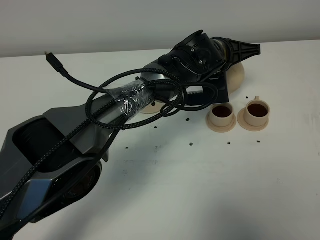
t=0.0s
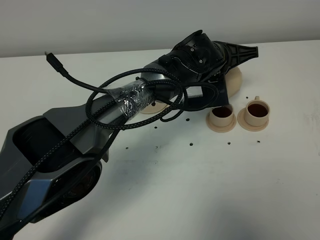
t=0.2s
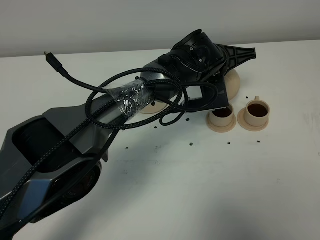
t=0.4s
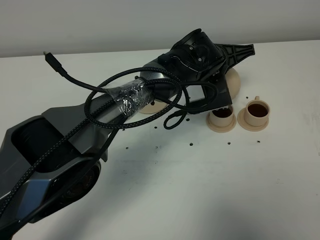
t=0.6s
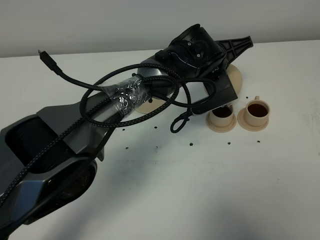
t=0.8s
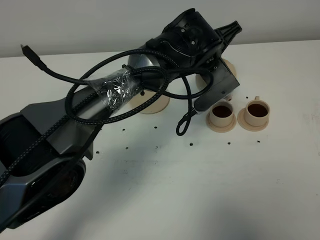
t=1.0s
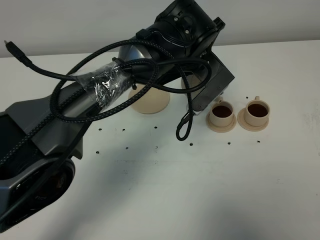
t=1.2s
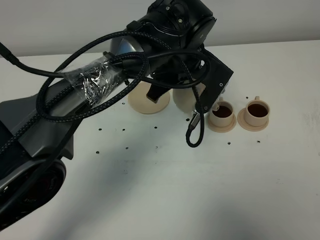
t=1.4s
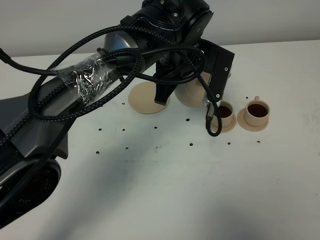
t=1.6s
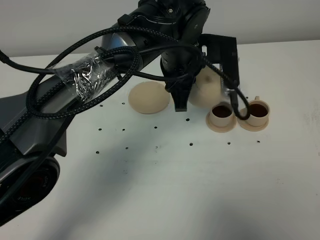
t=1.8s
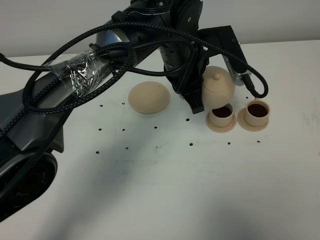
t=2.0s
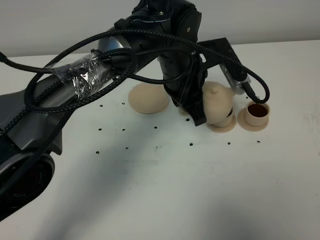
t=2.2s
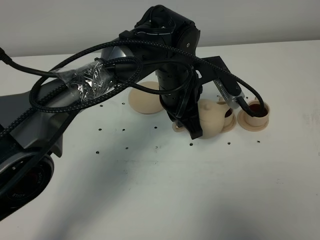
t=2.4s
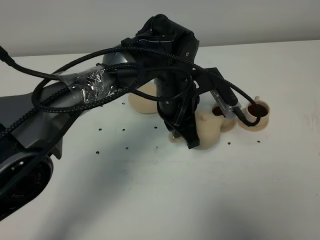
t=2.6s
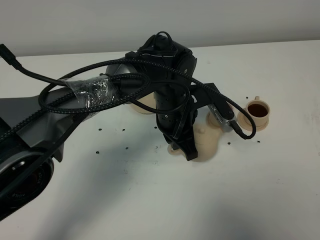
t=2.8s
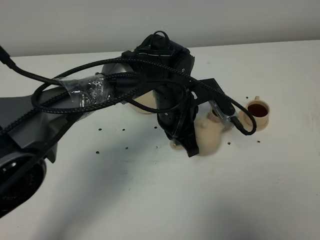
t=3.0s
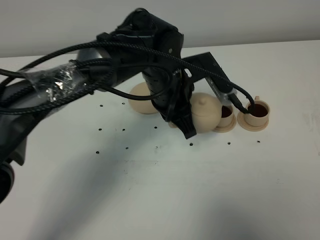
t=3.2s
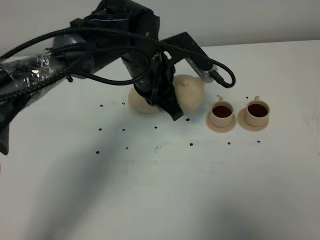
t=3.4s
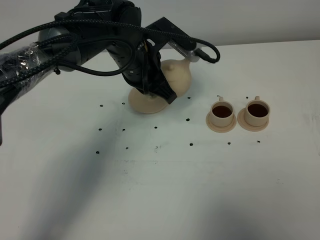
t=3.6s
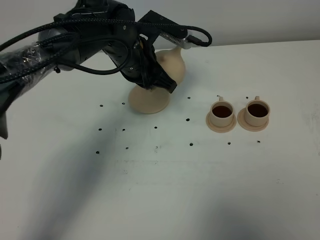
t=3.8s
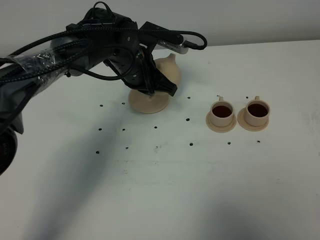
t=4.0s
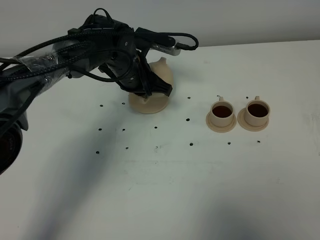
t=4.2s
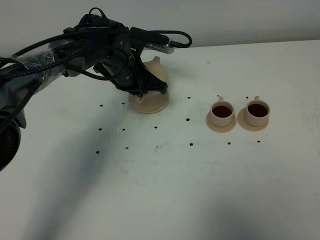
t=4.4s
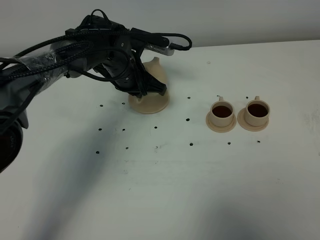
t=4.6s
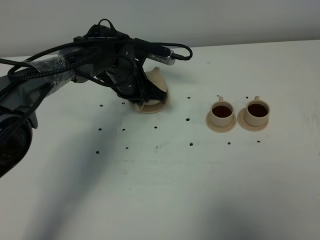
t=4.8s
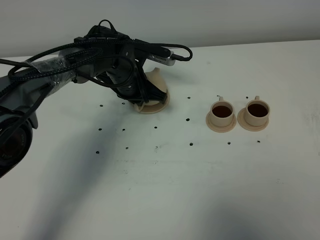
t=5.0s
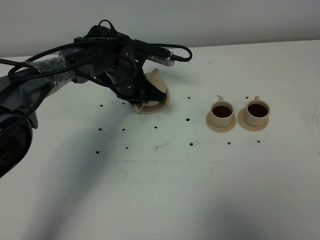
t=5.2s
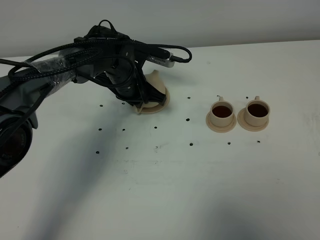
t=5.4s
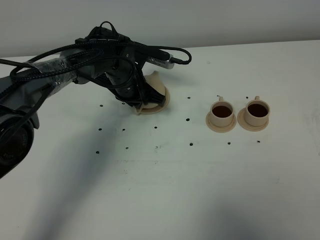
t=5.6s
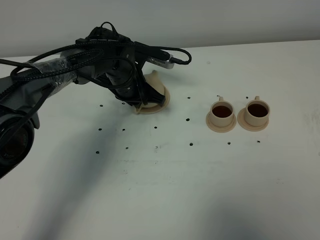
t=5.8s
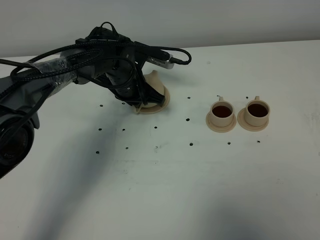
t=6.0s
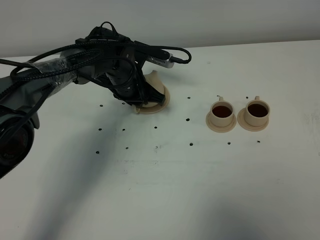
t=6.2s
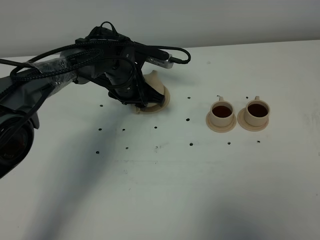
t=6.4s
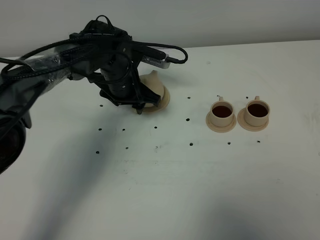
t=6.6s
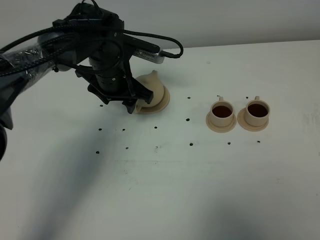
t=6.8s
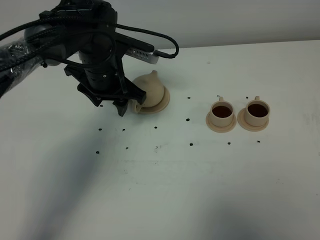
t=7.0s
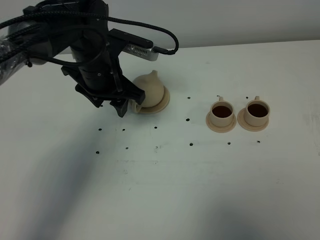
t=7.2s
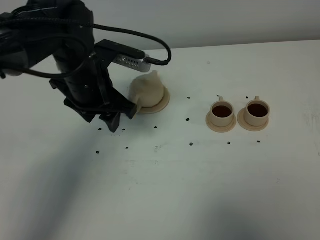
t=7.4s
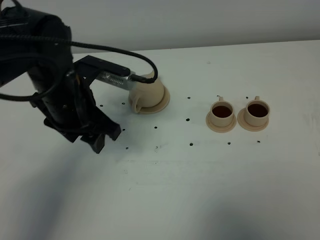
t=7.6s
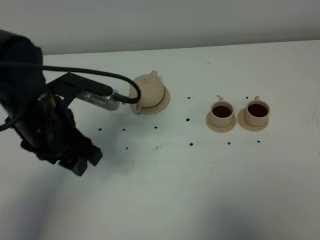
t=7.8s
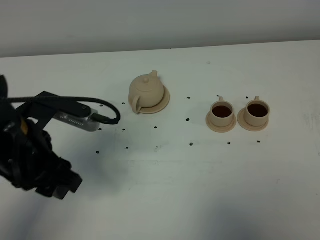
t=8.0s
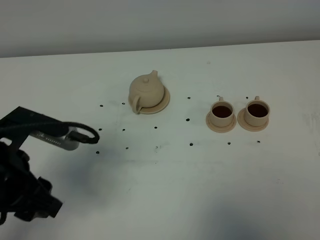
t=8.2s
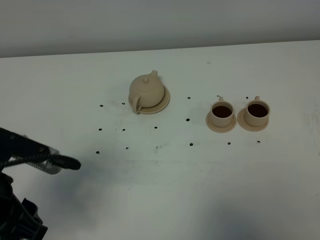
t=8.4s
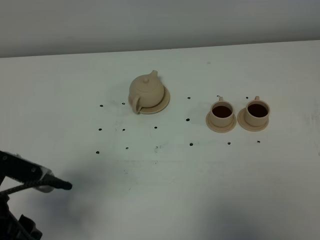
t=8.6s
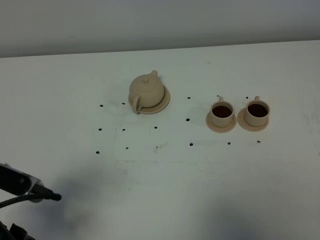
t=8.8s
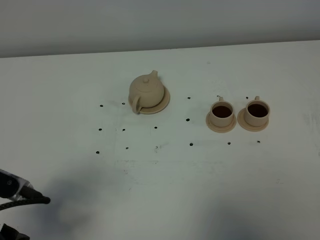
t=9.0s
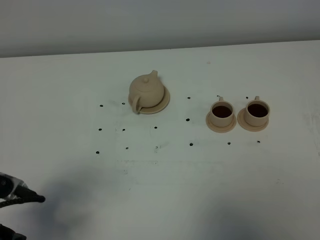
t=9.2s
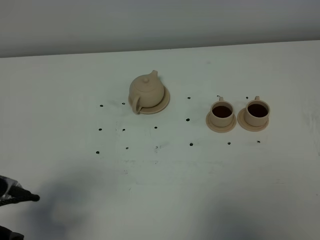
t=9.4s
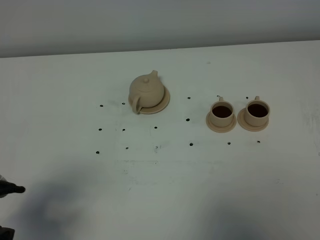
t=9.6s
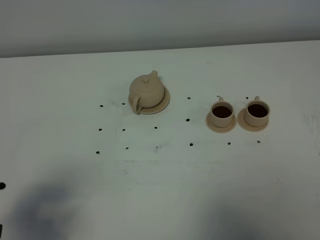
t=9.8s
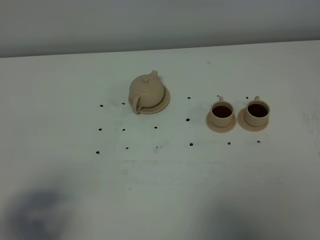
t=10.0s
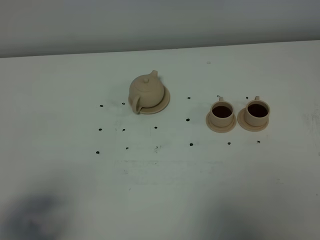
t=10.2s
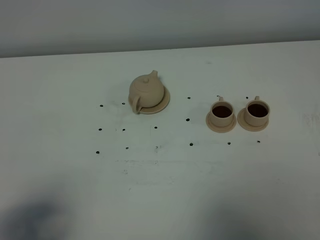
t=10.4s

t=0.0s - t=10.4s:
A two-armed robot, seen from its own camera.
Task of the whole recording: grasp the brown teapot and pour the tea into the two brown teacups one by one, put the brown teapot back in its original place.
t=0.0s - t=1.4s: The left gripper heads upward and to the left, covering roughly 10 cm.
t=1.4s - t=3.0s: The left gripper travels downward by some 10 cm.
t=3.0s - t=4.4s: The left gripper shifts some 15 cm to the left and forward.
t=4.4s - t=6.0s: The grippers move only a little.
t=6.0s - t=7.4s: The left gripper travels upward and backward by about 15 cm, and opens up.
t=7.4s - t=9.0s: The left gripper travels backward and to the left by approximately 25 cm.
t=9.0s - t=10.4s: The left gripper goes about 5 cm backward.

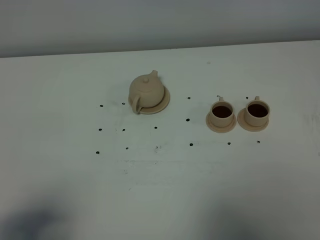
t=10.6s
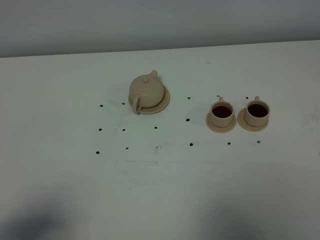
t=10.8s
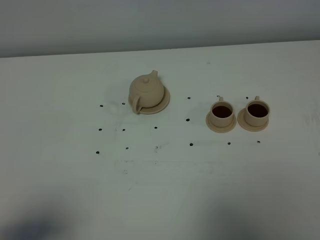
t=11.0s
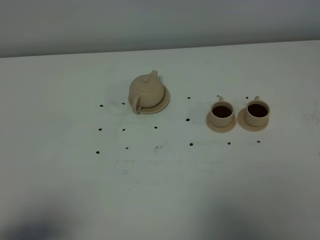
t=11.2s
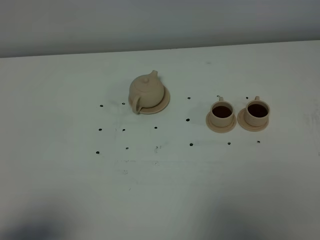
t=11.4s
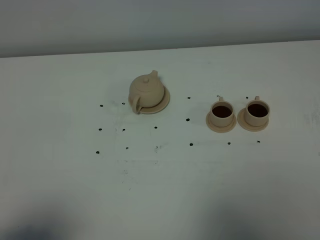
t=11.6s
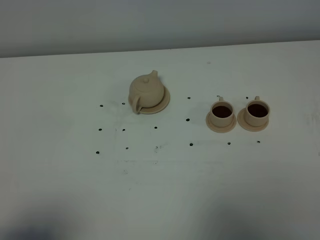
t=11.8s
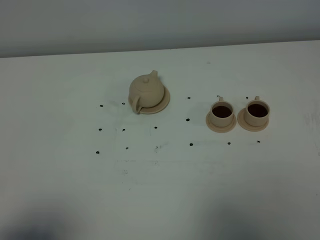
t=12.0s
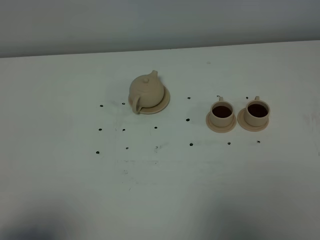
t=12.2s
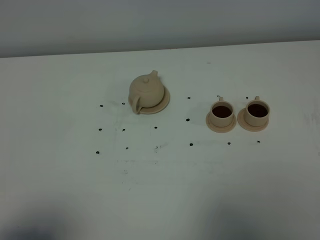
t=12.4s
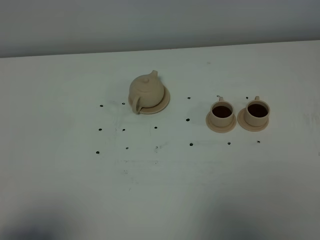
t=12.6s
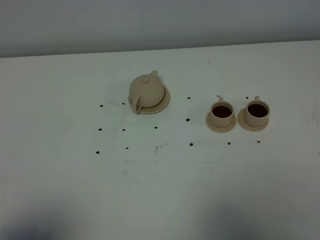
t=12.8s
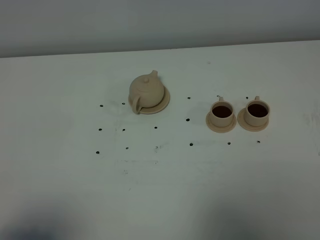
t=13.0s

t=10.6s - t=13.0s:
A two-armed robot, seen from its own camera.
Task of the whole recording: grasp the brown teapot and pour the tea into the two brown teacups one by one, put the brown teapot back in its original place.
t=11.8s - t=13.0s: Both grippers stay about where they are.

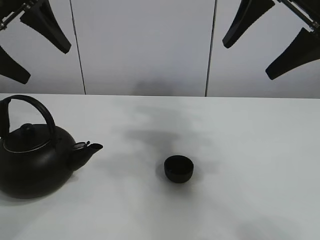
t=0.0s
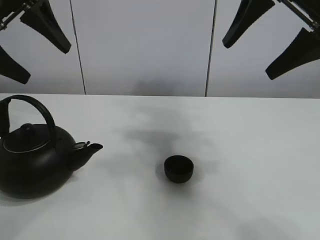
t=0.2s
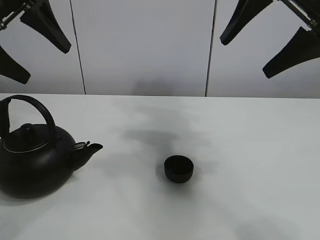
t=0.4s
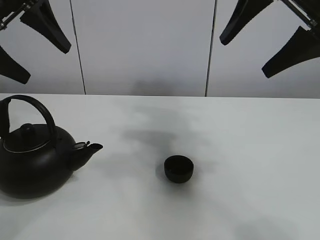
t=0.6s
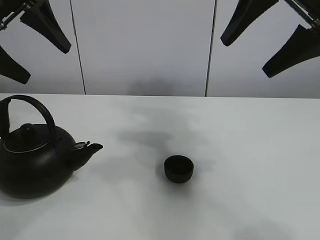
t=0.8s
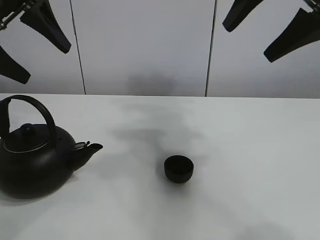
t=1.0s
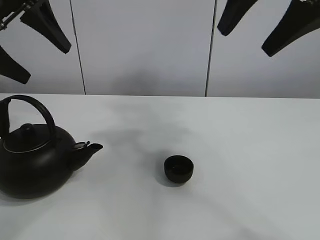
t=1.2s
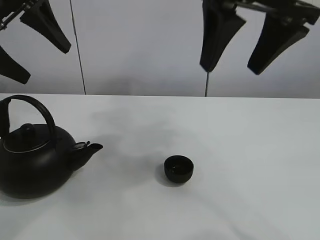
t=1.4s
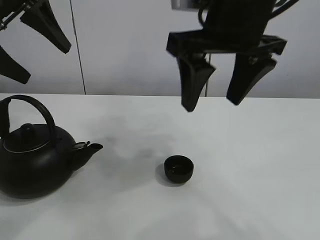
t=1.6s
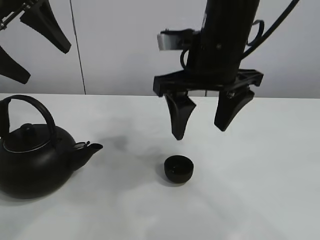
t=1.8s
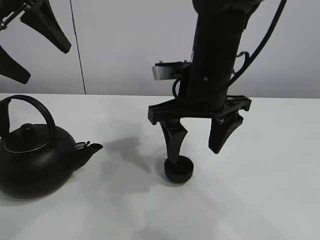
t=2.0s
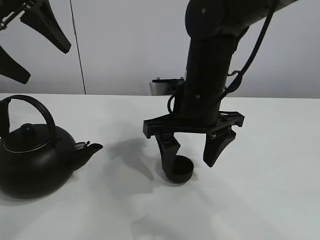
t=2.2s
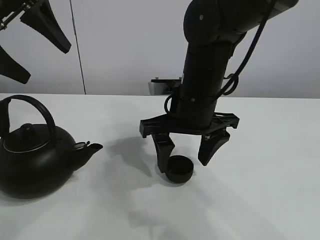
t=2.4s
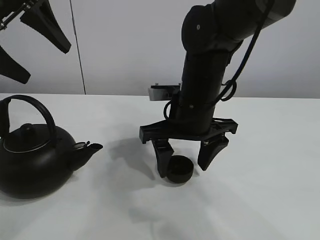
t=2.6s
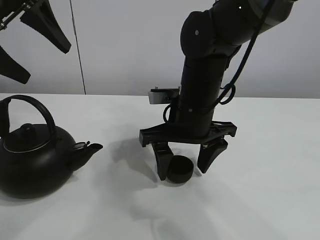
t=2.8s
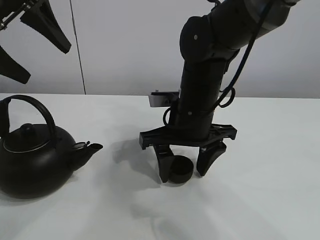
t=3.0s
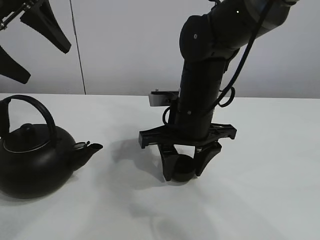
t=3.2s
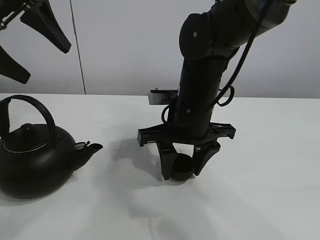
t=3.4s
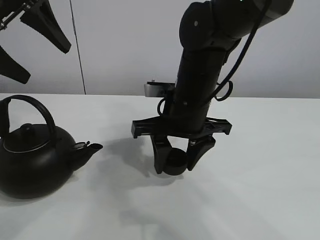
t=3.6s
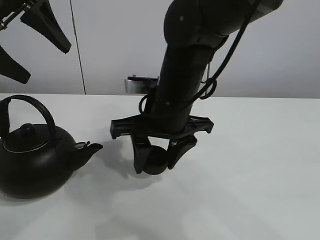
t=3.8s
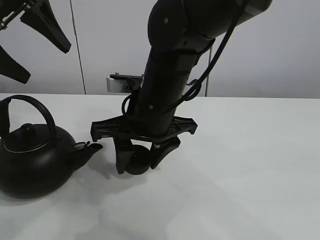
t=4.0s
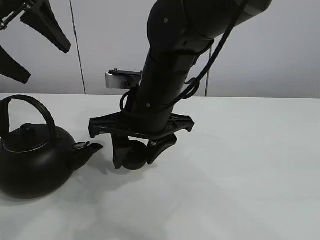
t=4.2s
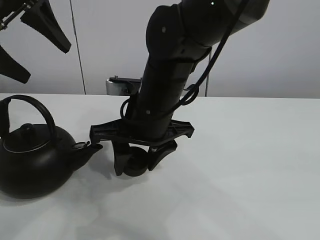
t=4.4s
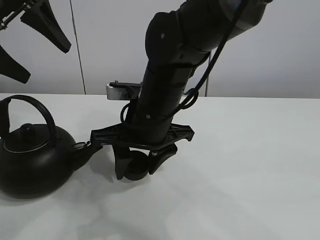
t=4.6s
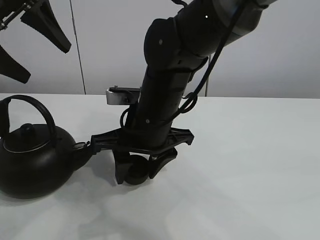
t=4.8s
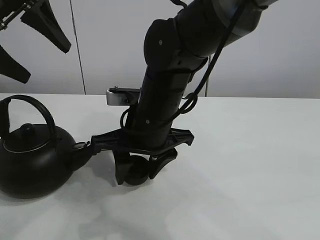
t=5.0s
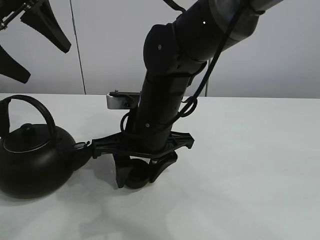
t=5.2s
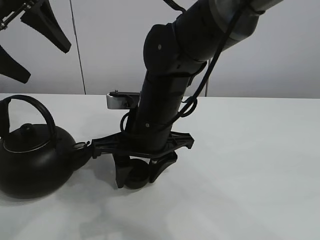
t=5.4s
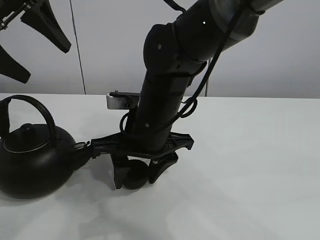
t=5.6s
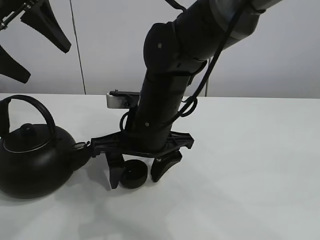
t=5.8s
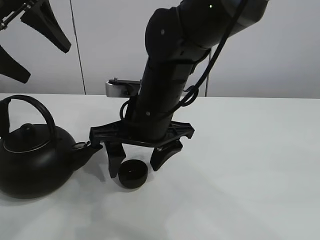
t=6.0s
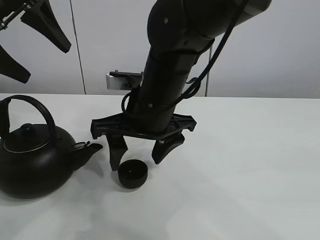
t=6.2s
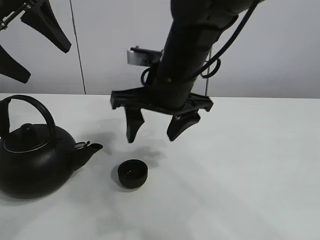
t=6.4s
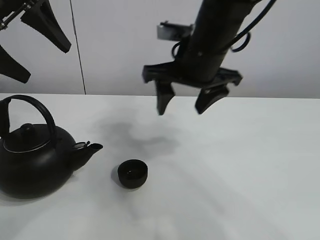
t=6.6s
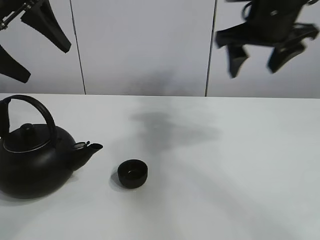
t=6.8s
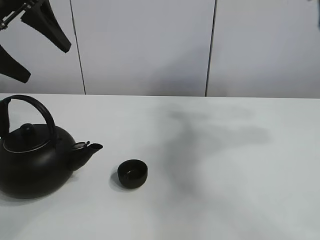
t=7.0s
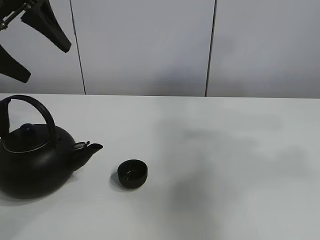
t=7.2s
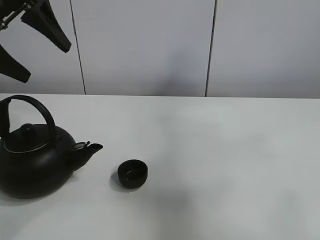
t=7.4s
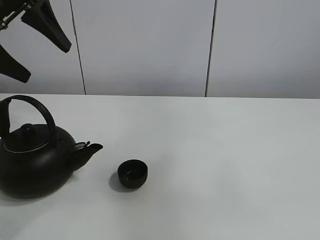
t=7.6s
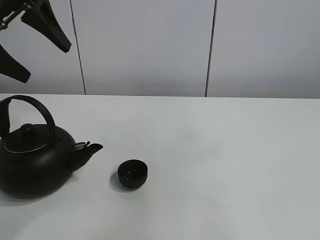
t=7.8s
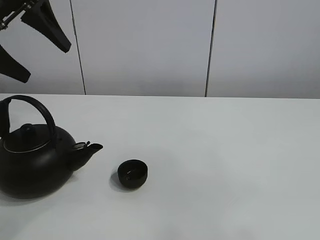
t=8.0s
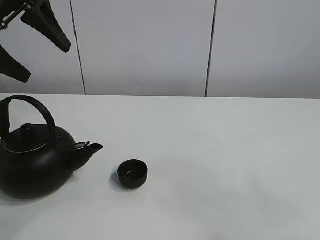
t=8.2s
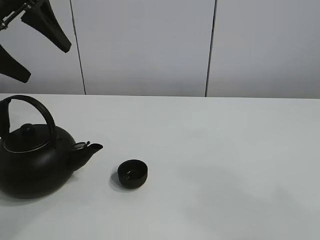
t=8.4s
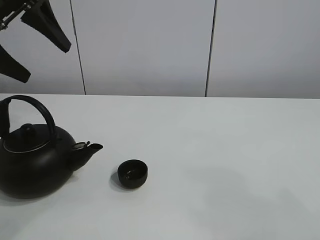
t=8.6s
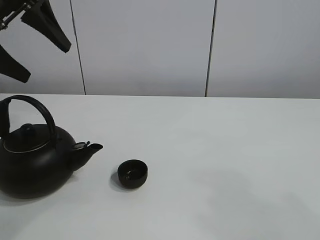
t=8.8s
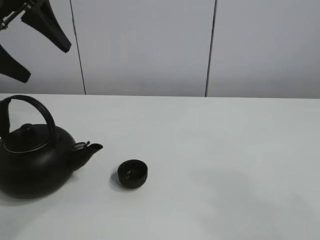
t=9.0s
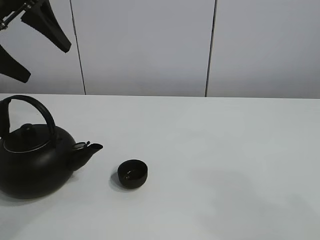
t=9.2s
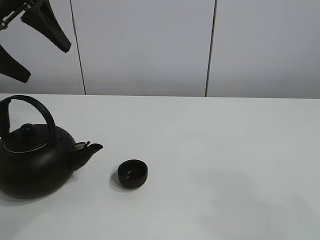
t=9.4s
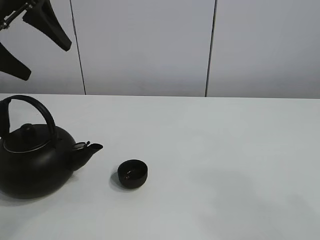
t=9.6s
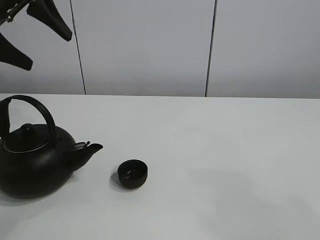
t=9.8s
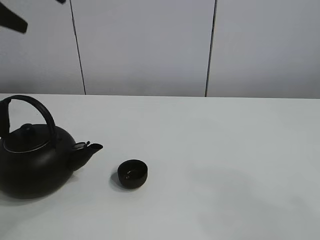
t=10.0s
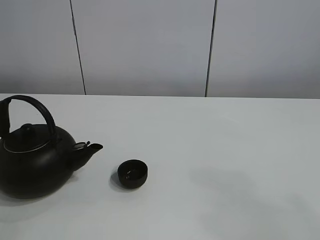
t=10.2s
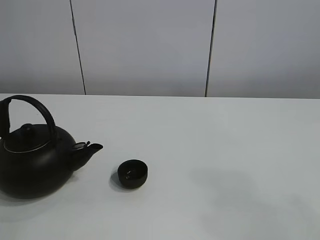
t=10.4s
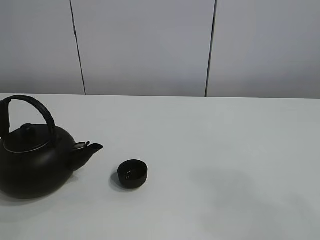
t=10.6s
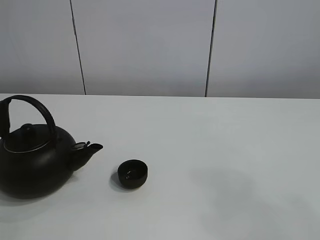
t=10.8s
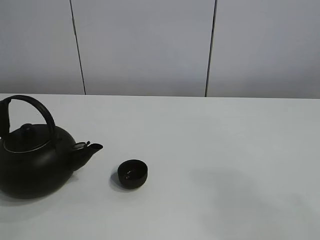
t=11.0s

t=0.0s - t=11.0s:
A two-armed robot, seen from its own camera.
Task of the whole recording: pour tea into the teacup.
Step, t=0.0s - t=3.4s: Pick up the teacup with the right gripper.
Step, t=3.6s - t=5.6s: Place the teacup in the center of view with the right gripper.
t=1.6s - t=3.2s: The right gripper moves downward, roughly 15 cm, and closes.
t=3.2s - t=4.8s: The right gripper goes some 5 cm to the left.
t=4.8s - t=6.2s: The right gripper opens its fingers.
t=6.2s - t=7.8s: The right gripper travels backward, upward and to the right by approximately 60 cm.
t=7.8s - t=9.4s: The right gripper shifts roughly 20 cm downward.
t=9.4s - t=11.0s: The left gripper goes roughly 15 cm upward and backward.
